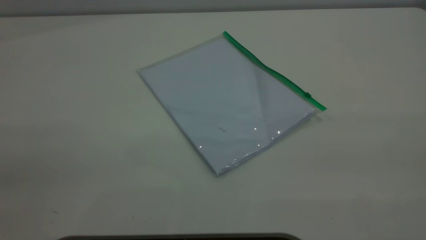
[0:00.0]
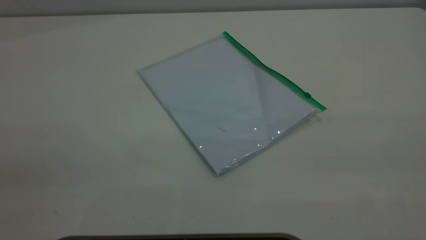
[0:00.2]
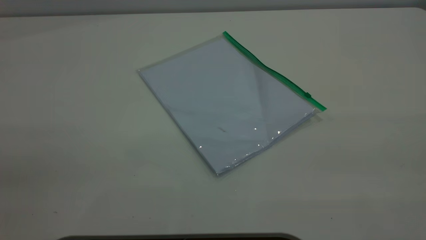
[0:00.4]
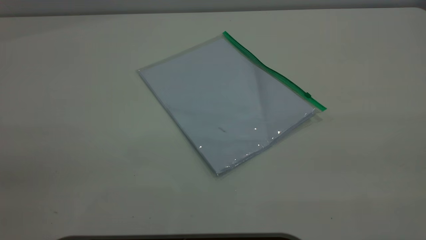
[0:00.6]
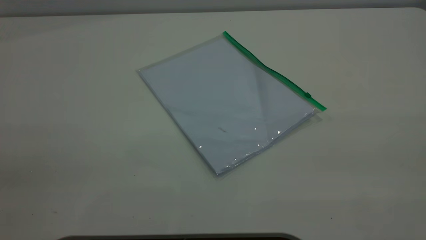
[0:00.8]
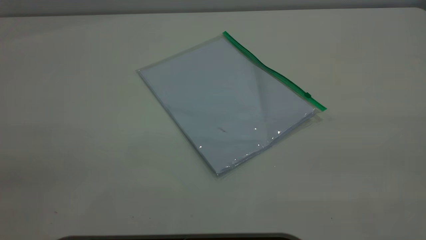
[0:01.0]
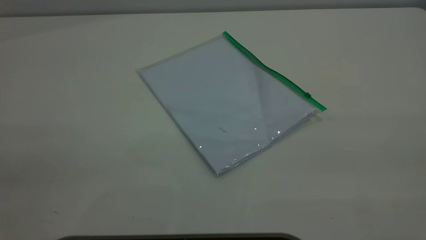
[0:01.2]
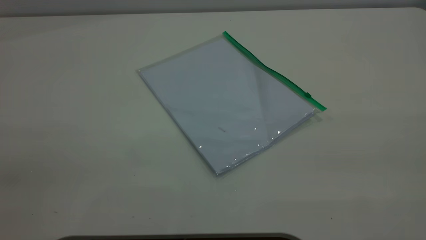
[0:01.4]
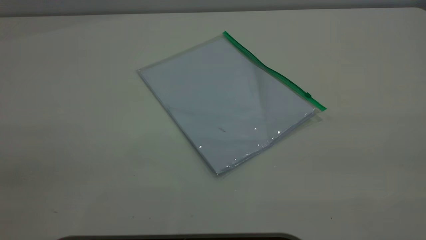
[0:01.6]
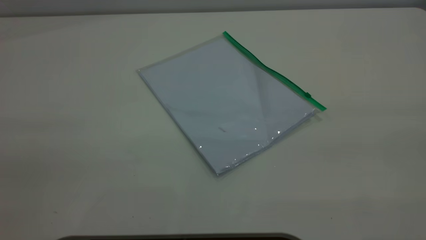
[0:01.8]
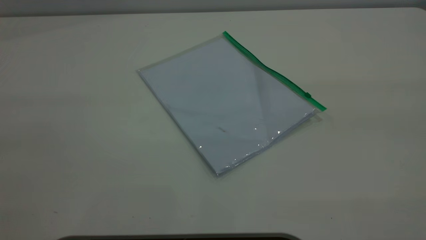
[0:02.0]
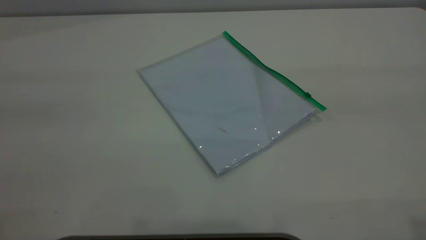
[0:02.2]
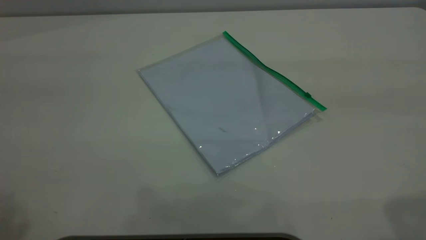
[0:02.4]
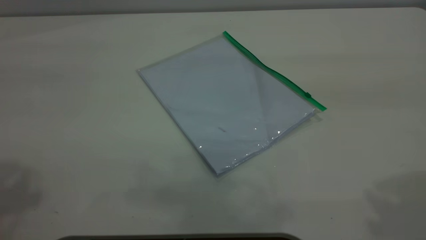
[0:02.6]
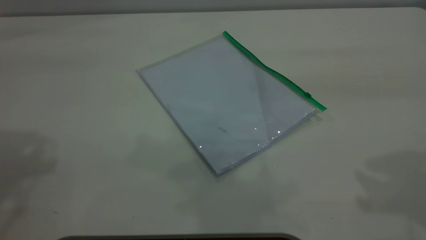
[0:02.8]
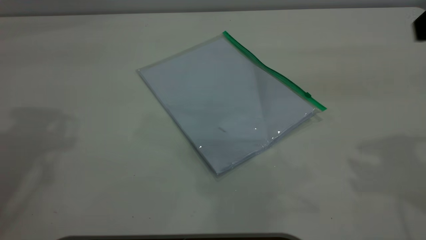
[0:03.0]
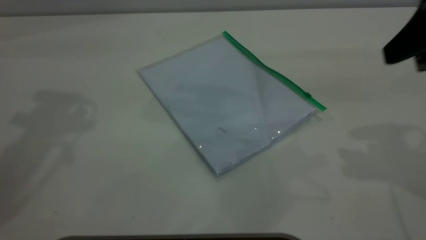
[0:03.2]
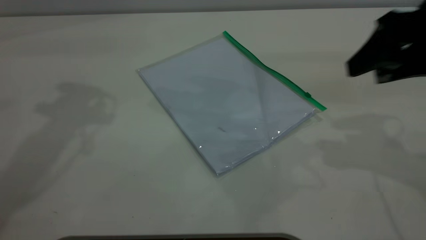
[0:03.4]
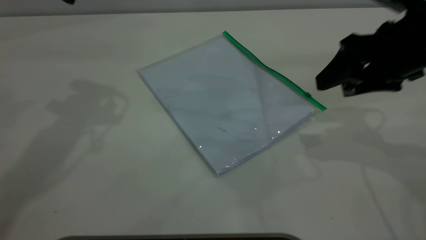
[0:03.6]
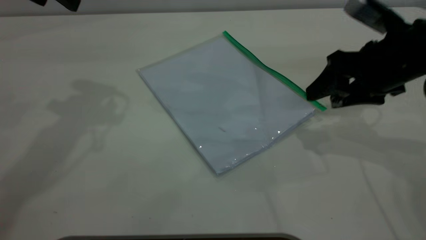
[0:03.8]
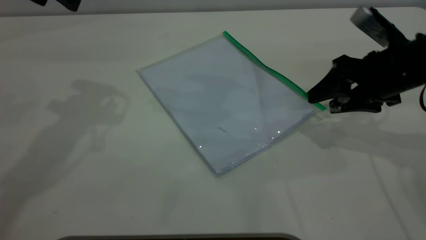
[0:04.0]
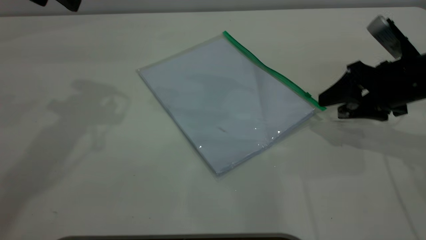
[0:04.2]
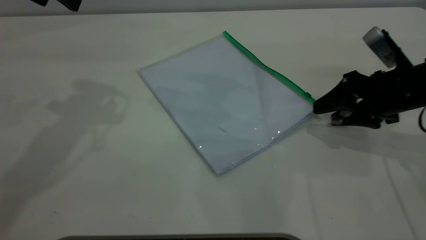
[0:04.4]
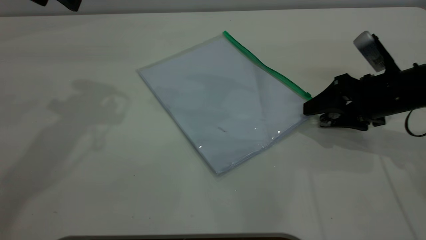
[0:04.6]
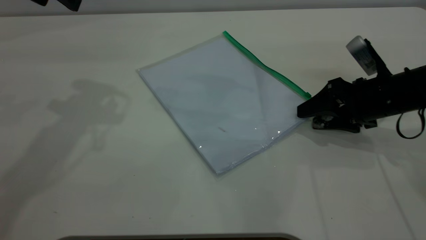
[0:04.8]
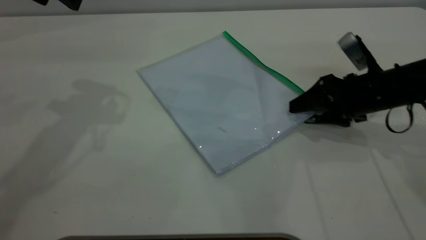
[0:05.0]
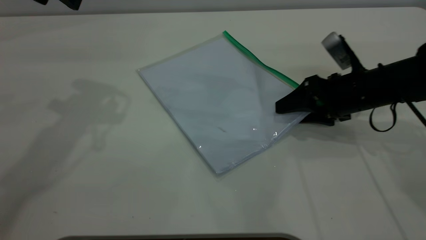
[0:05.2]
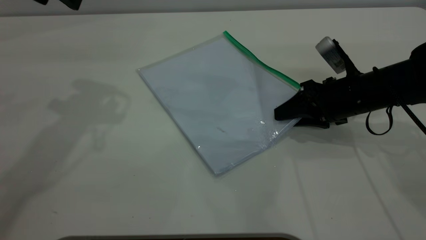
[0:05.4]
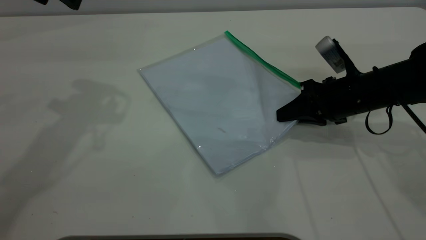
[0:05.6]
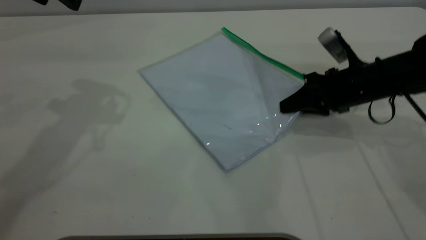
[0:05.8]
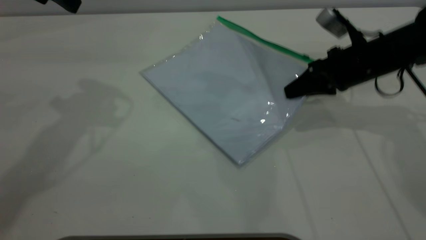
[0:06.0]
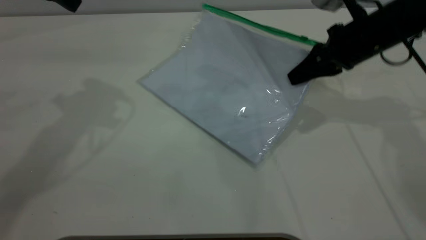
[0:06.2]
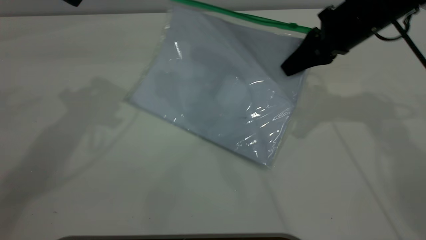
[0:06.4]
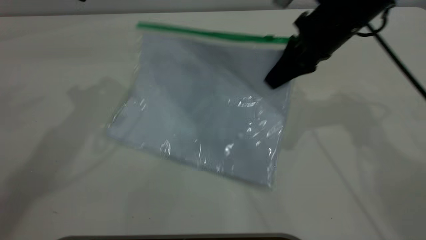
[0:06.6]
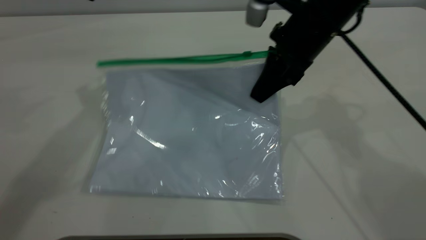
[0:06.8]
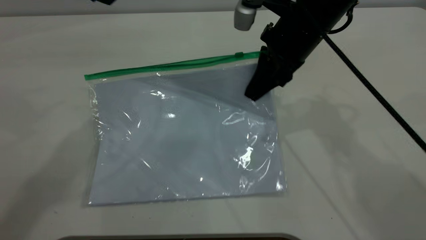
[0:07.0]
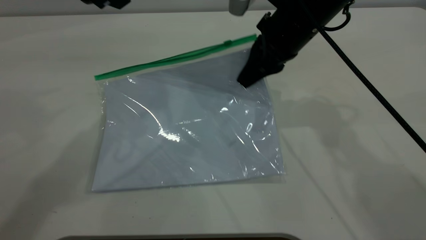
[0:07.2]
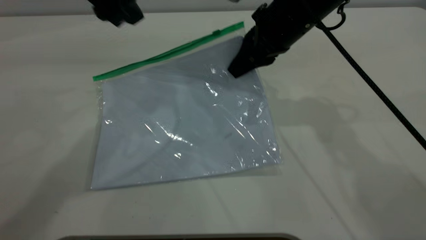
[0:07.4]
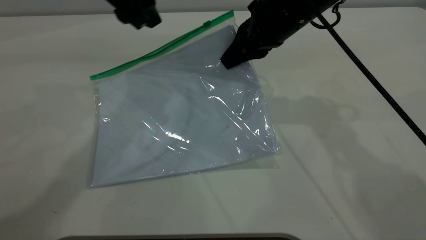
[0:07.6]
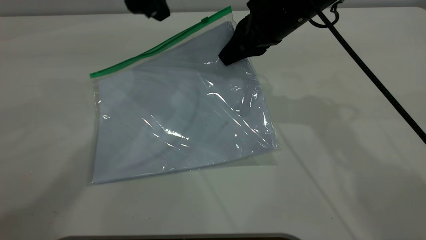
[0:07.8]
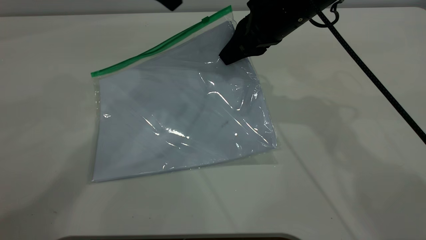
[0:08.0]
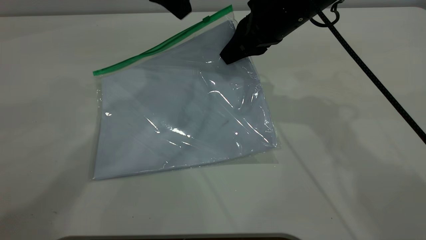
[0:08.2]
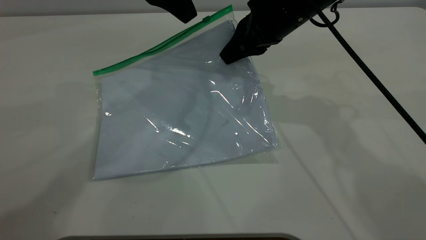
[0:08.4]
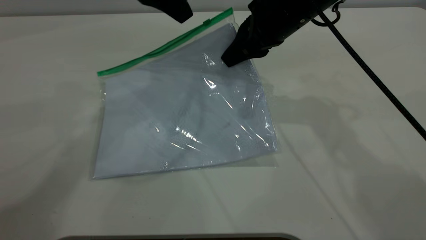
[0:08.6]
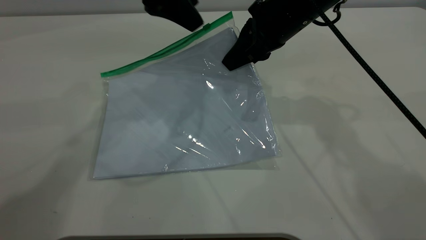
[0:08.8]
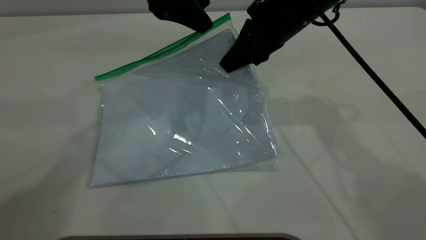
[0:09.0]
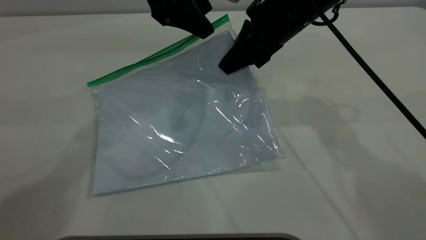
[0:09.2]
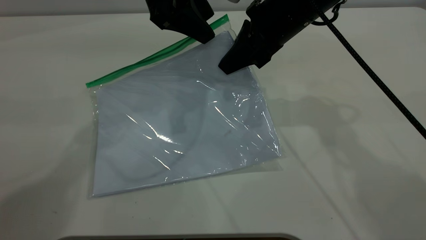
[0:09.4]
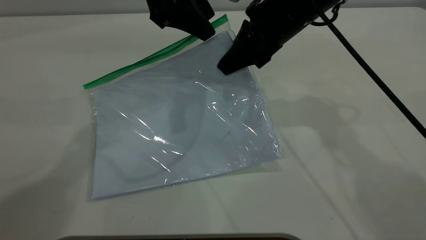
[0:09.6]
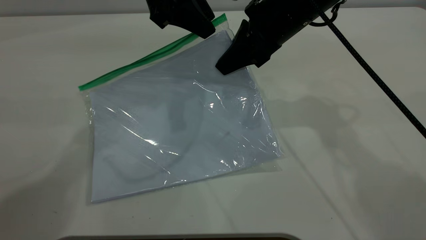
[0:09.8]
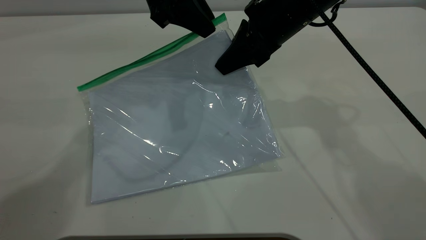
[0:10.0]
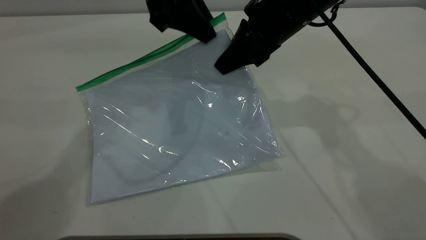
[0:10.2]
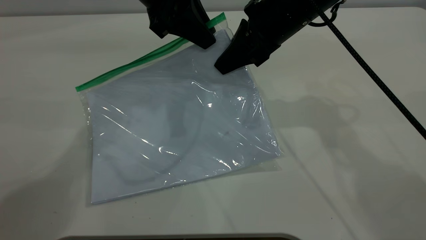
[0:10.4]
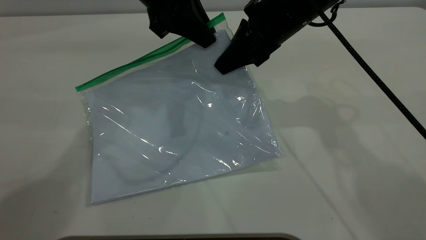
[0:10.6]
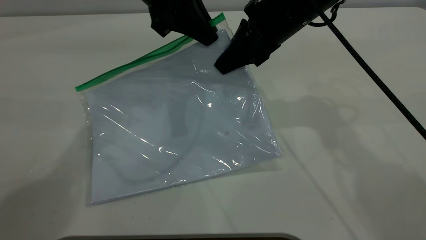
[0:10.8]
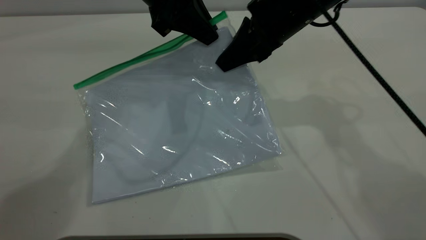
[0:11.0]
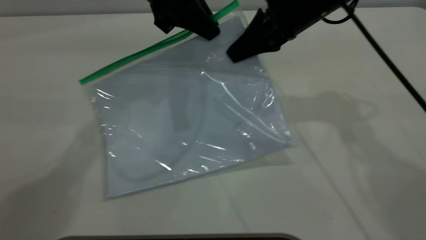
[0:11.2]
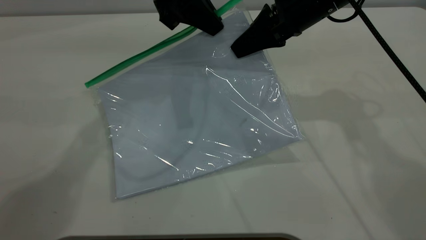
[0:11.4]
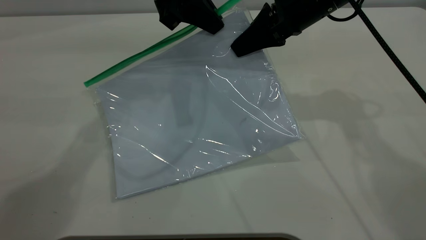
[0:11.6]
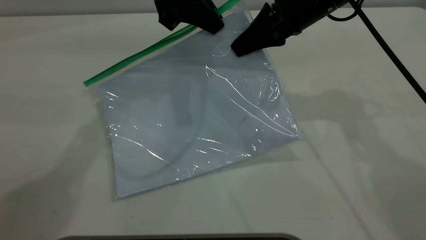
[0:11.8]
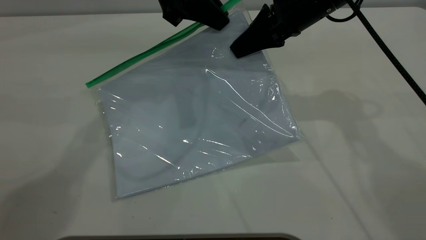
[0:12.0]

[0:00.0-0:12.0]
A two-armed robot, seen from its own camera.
Step, 0:00.0 to 0:05.8: Pick up the transparent plastic bag with the right gripper.
0:00.0 to 0:01.6: Neither gripper changes place.
0:03.0 to 0:04.4: The right gripper goes approximately 20 cm downward.
0:04.4 to 0:06.0: The right gripper goes approximately 5 cm forward, and closes.
0:06.0 to 0:07.6: The right gripper is displaced to the left and upward by about 15 cm, while the left gripper travels to the right by some 10 cm.
0:09.0 to 0:10.4: The left gripper closes up.
0:10.4 to 0:12.0: The grippers move only a little.

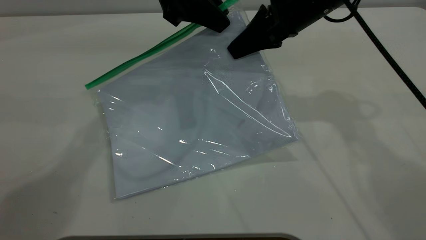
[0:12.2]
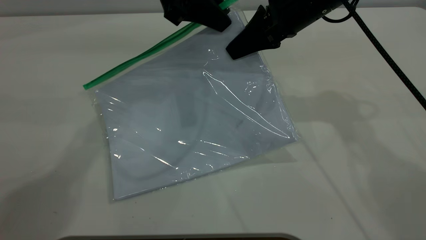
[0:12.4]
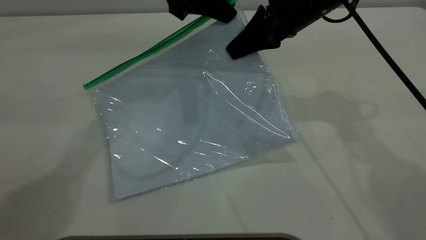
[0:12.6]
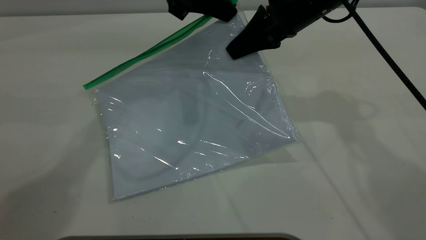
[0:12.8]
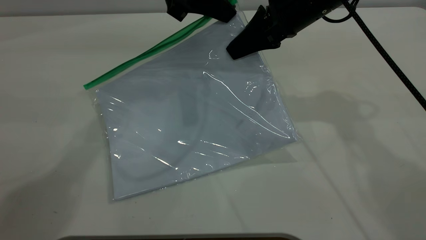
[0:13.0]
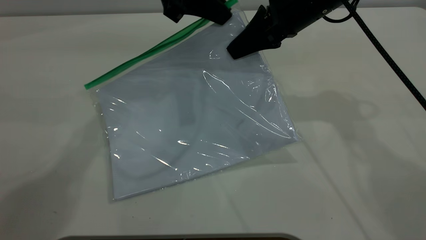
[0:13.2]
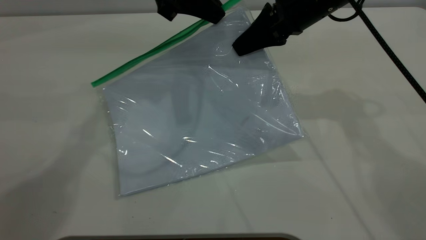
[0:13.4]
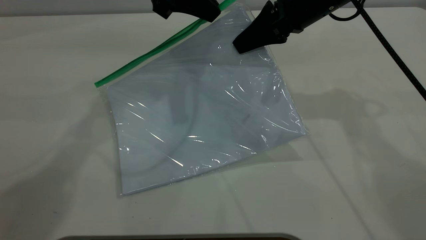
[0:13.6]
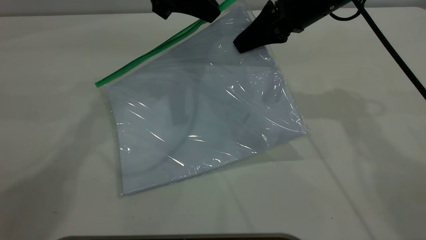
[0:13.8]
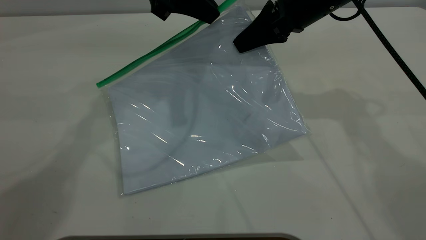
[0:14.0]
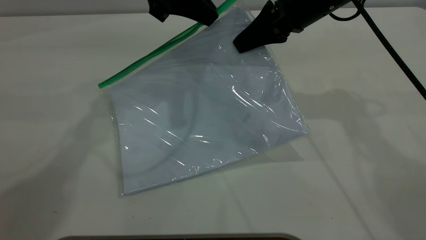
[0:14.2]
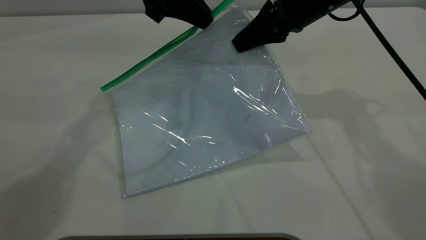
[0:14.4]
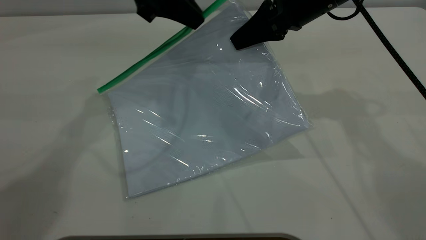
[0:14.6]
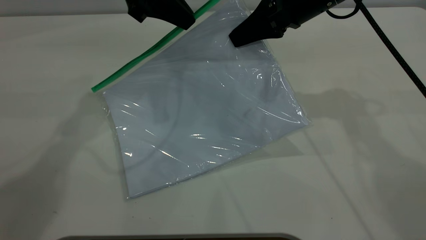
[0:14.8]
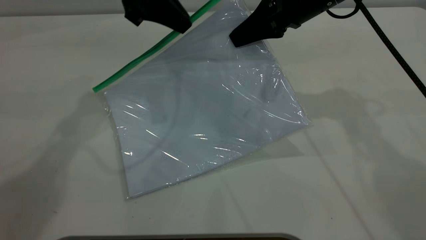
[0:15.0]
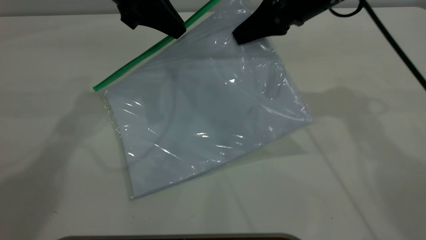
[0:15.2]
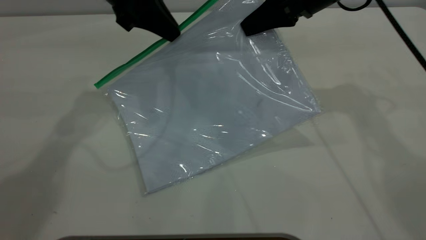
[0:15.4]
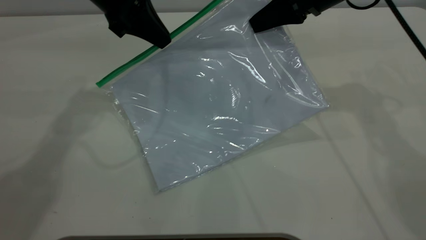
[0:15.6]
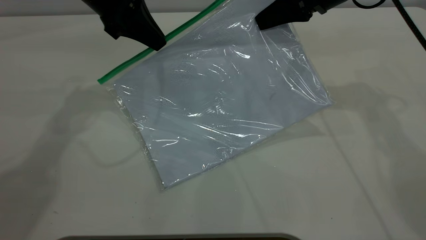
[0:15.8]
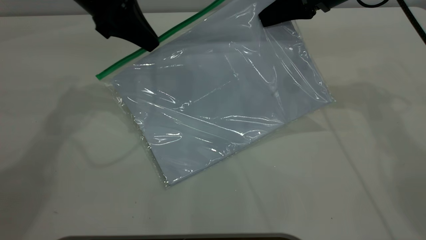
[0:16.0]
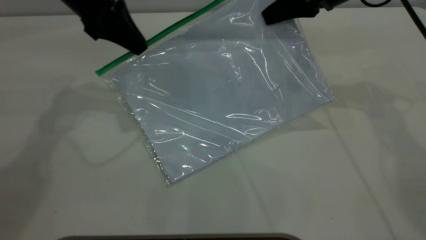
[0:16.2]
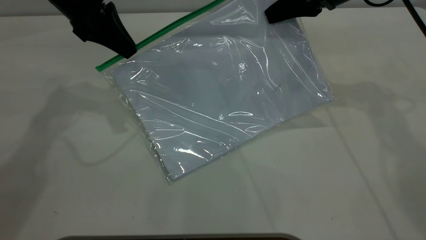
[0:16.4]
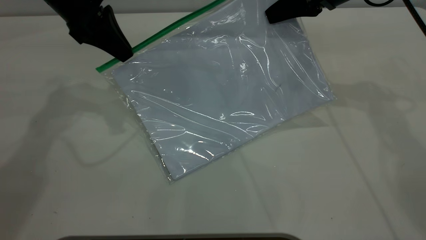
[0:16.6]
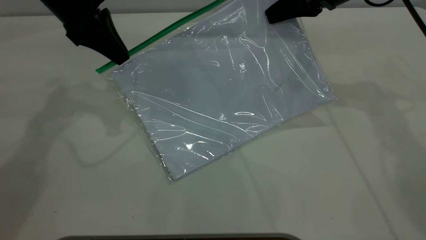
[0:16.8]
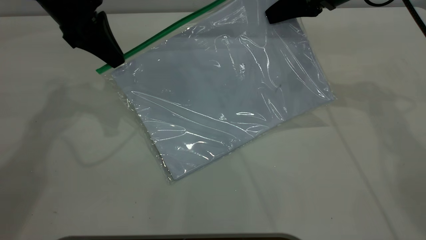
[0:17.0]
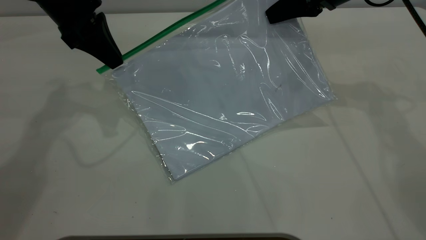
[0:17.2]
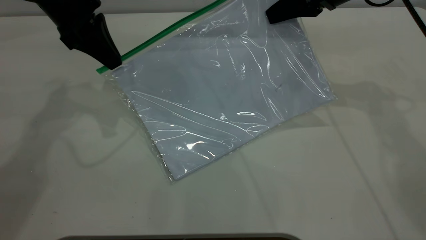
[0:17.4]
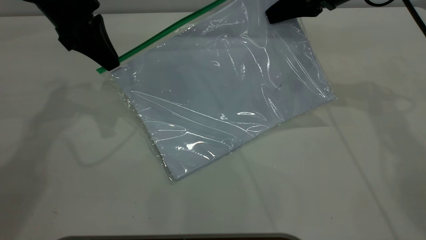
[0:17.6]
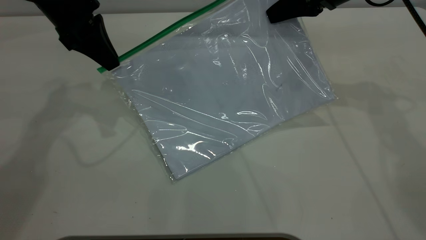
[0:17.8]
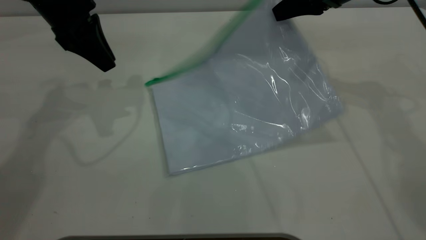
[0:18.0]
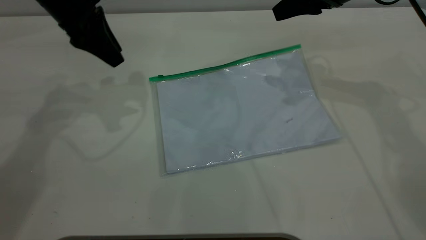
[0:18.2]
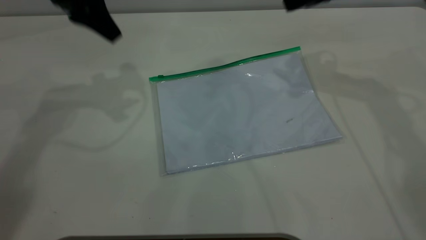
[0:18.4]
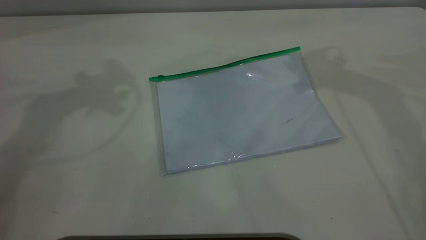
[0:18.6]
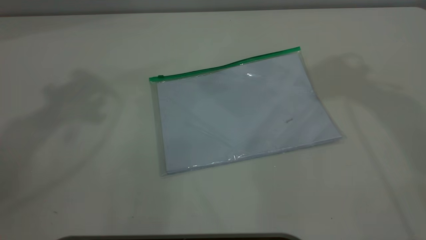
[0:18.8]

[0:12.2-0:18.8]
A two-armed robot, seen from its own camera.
Step, 0:12.2 to 0:17.8: Pulling up the zipper on the transparent plastic bag with the left gripper to close it.
Step, 0:18.0 to 0:18.2: Place the transparent plastic bag.
0:12.2 to 0:13.8: The left gripper closes up.
0:13.8 to 0:15.4: The left gripper moves about 5 cm.
0:15.4 to 0:17.2: The left gripper is displaced to the left by some 5 cm.
0:17.2 to 0:18.8: Both grippers travel together upward, about 25 cm. The right gripper opens up, while the left gripper opens.
